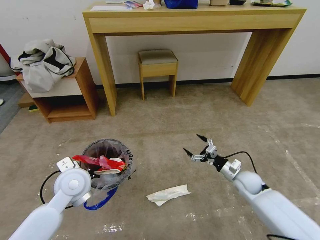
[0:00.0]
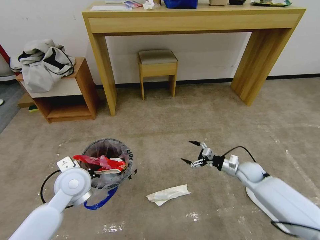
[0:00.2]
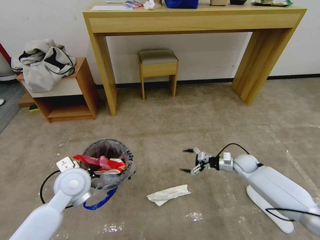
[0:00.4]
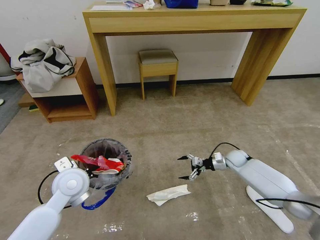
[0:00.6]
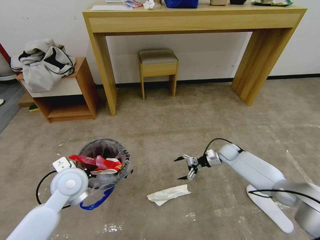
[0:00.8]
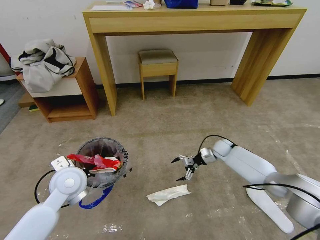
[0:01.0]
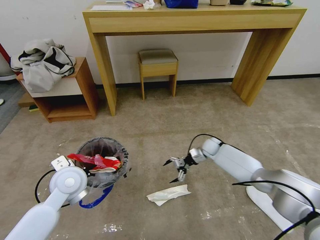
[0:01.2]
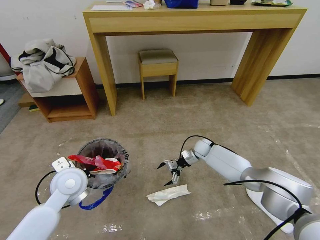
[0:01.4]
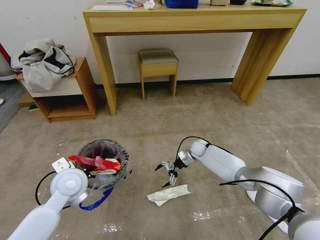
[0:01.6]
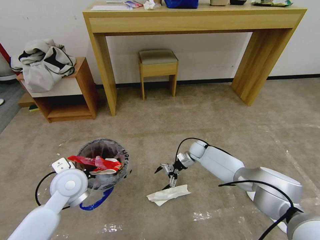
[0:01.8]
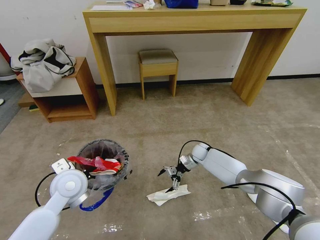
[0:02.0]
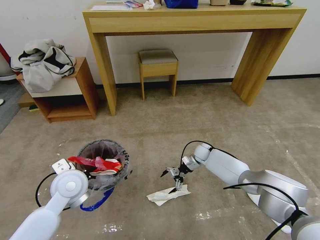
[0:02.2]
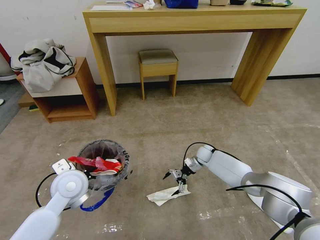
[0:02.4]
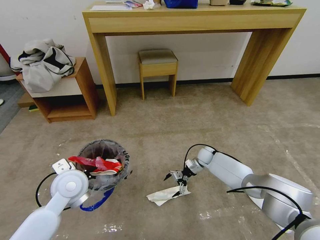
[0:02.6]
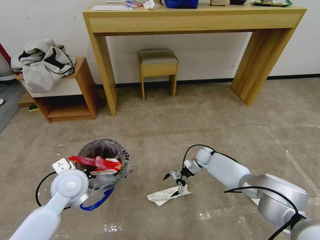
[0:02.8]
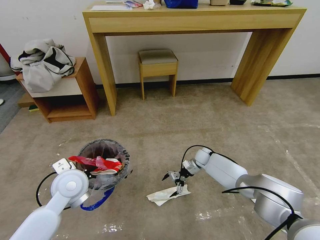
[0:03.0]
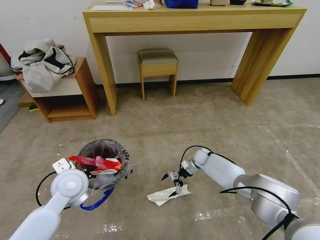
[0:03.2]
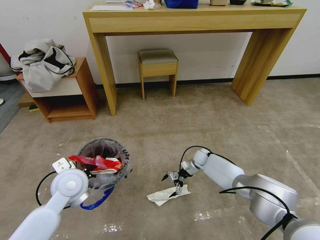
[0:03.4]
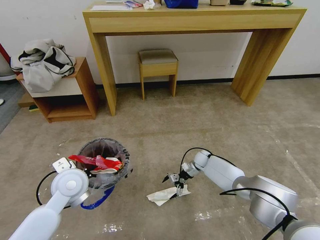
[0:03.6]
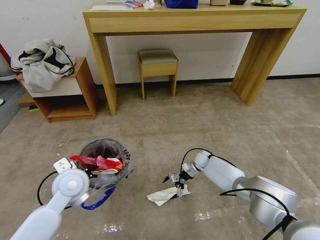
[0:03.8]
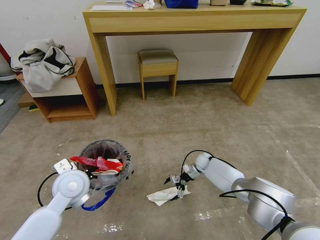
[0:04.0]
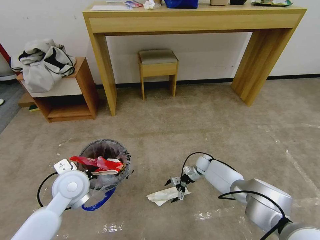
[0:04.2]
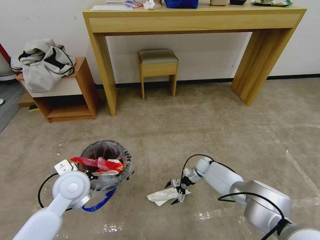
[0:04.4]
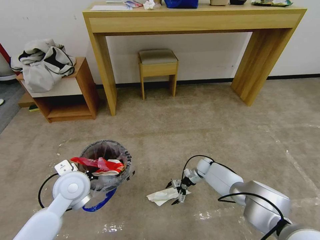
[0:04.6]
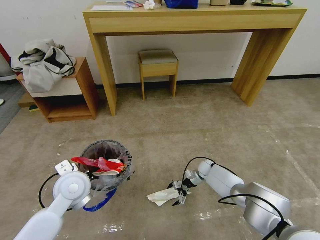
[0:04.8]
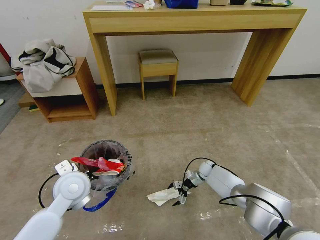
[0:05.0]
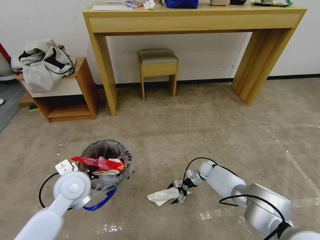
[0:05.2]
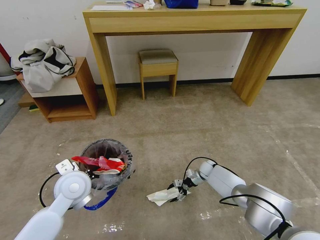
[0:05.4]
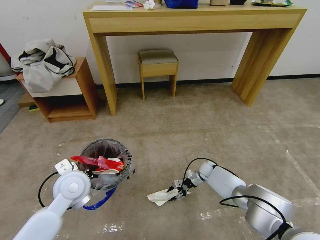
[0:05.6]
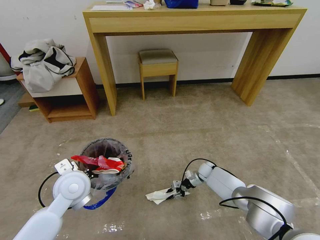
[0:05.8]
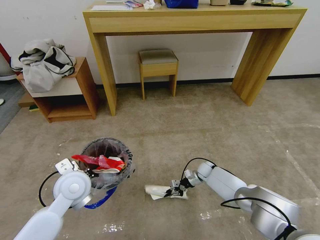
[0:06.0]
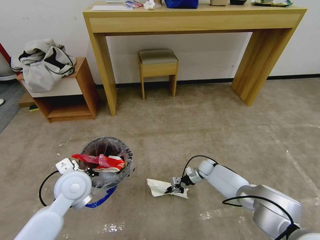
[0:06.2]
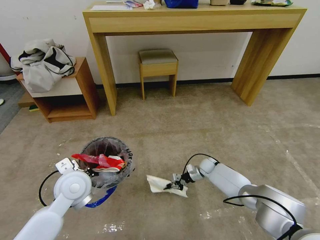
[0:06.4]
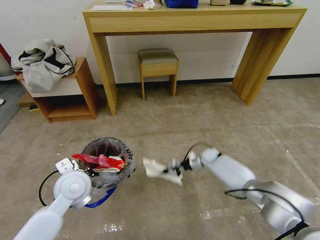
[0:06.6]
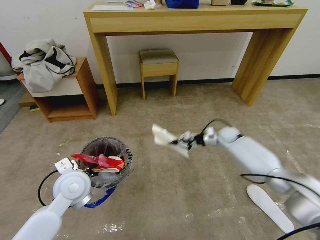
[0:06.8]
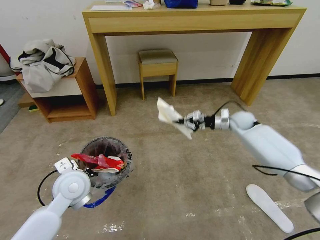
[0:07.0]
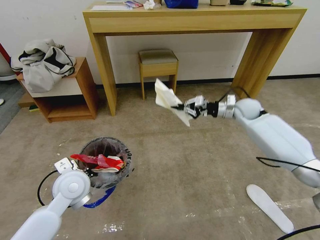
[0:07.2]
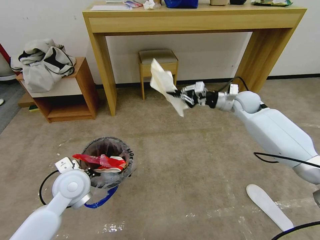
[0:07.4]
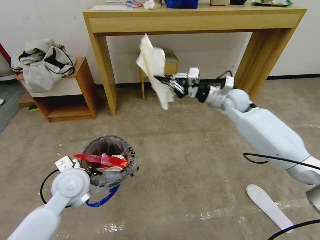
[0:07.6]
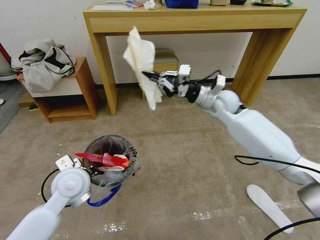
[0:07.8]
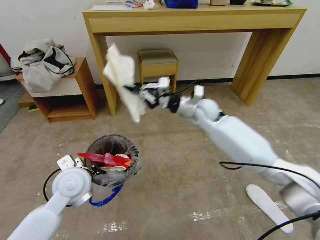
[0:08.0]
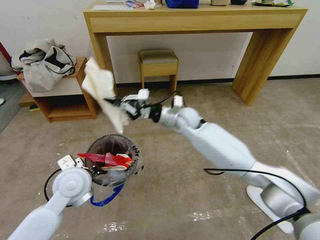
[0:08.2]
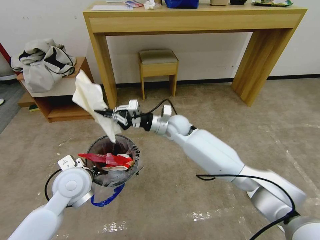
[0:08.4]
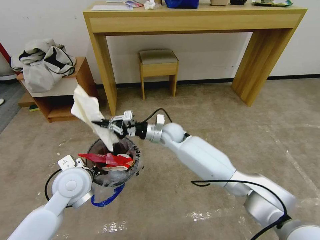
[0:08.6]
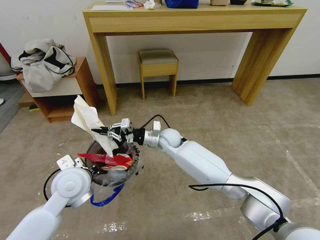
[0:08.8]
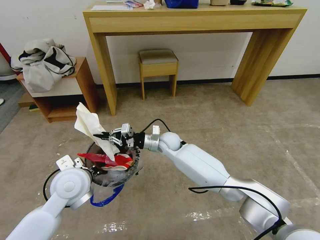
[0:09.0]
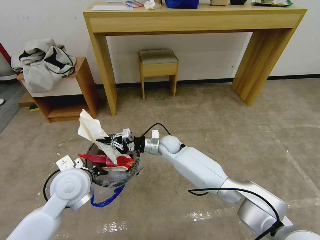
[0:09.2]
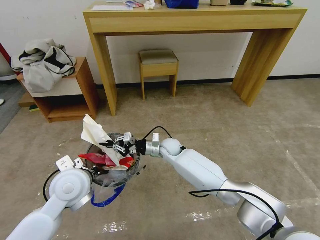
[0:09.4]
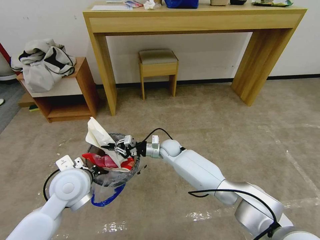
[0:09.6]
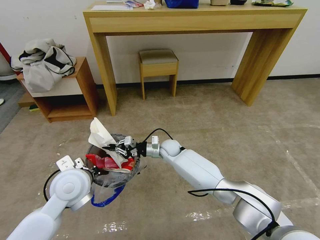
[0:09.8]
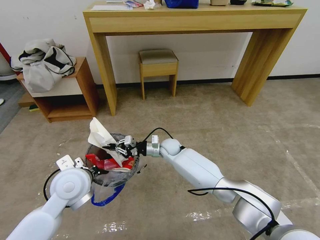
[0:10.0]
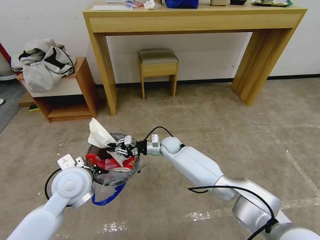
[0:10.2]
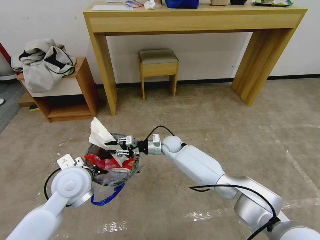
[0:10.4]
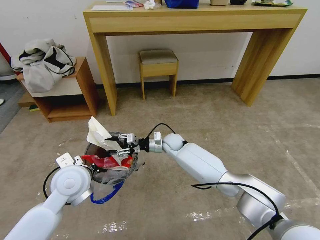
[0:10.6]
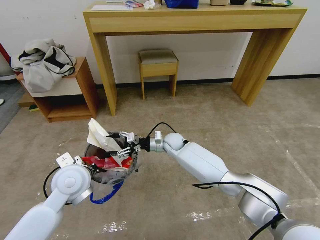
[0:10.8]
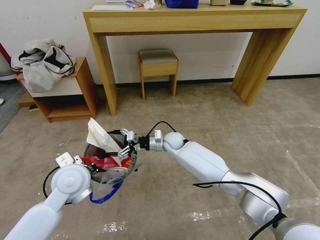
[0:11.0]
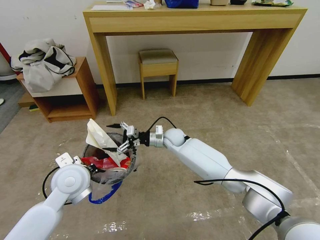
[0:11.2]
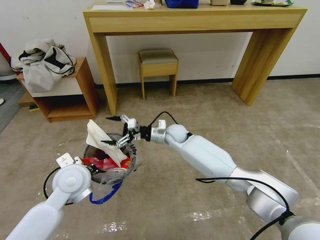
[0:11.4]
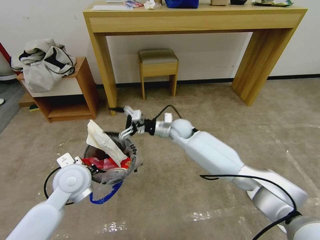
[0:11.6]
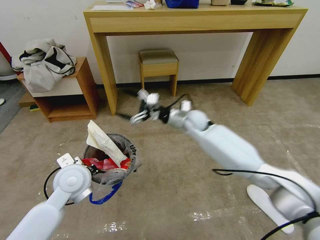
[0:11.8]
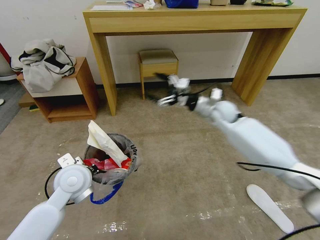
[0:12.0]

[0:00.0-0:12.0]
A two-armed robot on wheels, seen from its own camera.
Task of the whole recording: Pick up the trash bin and place the garbage on the floor into it.
0:00.0 to 0:01.6: The right gripper heads forward and to the left, covering some 25 cm.
0:01.6 to 0:03.0: The right gripper shifts by about 5 cm.
0:03.0 to 0:04.4: The right gripper ends up some 5 cm from where it was.
0:04.4 to 0:06.0: The right gripper closes up.
0:06.0 to 0:07.6: The right gripper is displaced upward by approximately 40 cm.
0:07.6 to 0:09.0: The right gripper goes roughly 30 cm to the left and downward.
0:09.0 to 0:10.4: The right gripper heads downward, covering approximately 5 cm.
0:10.4 to 0:12.0: The right gripper travels to the right and upward by approximately 25 cm, and opens up.

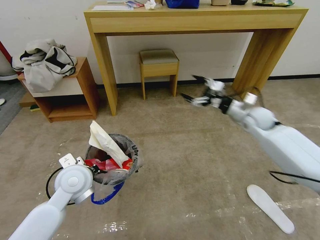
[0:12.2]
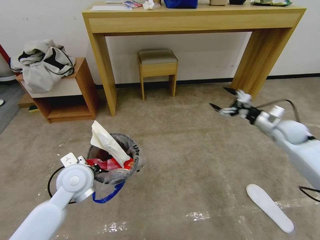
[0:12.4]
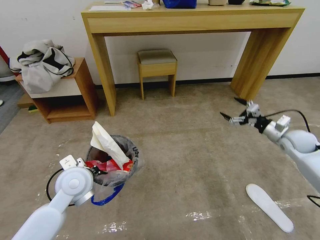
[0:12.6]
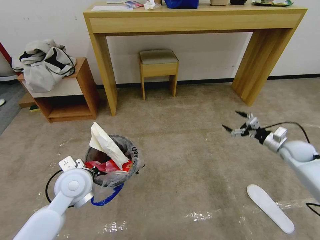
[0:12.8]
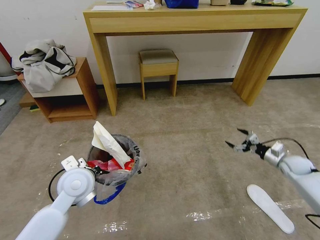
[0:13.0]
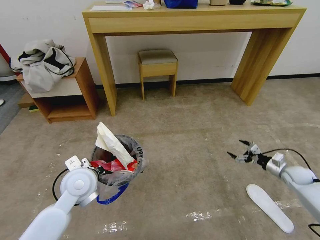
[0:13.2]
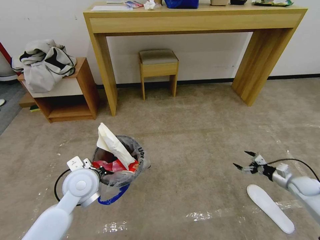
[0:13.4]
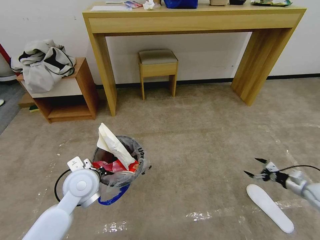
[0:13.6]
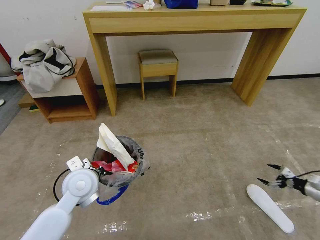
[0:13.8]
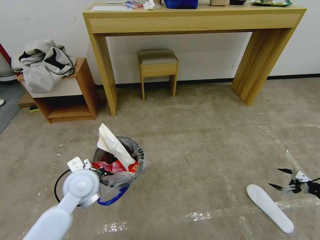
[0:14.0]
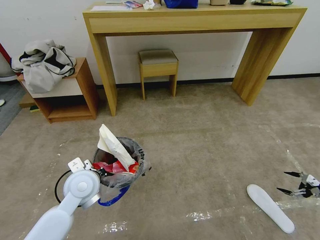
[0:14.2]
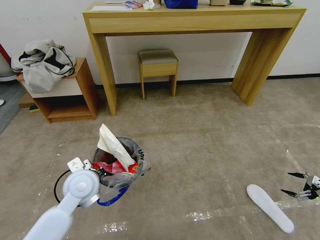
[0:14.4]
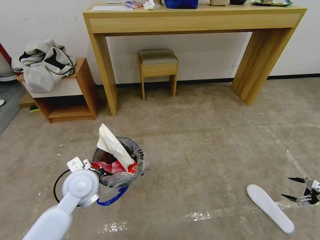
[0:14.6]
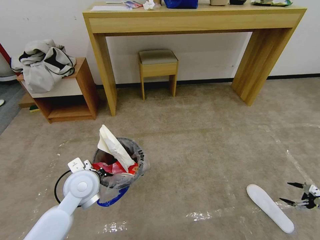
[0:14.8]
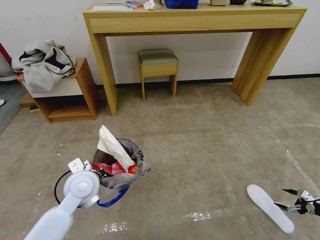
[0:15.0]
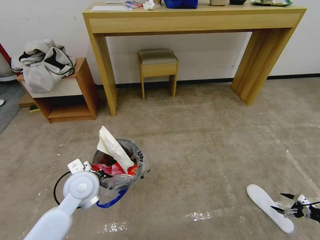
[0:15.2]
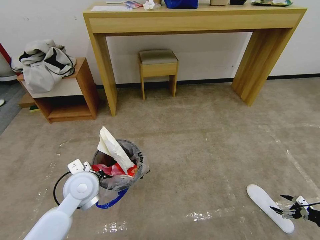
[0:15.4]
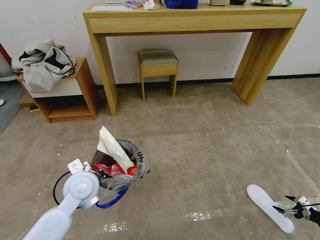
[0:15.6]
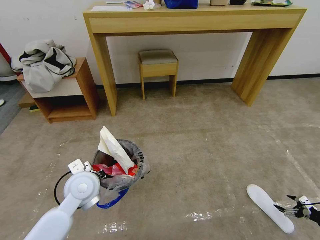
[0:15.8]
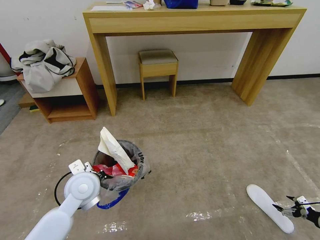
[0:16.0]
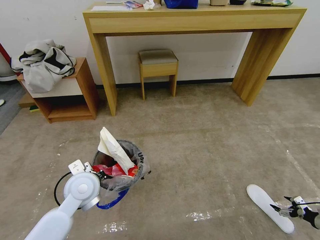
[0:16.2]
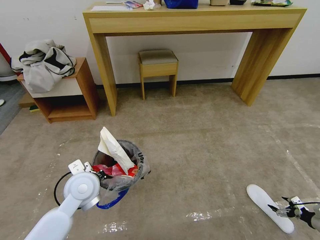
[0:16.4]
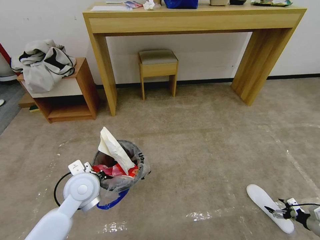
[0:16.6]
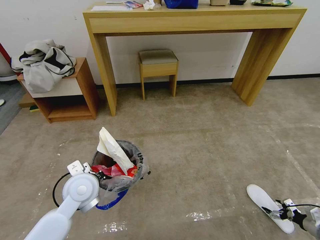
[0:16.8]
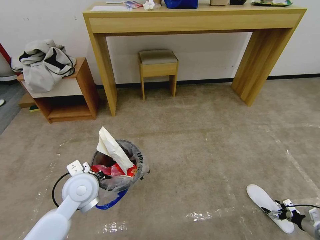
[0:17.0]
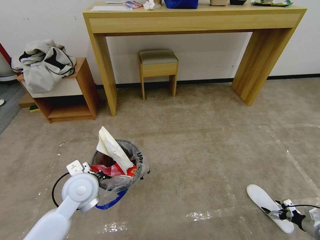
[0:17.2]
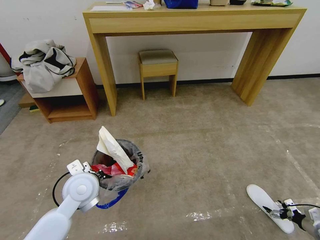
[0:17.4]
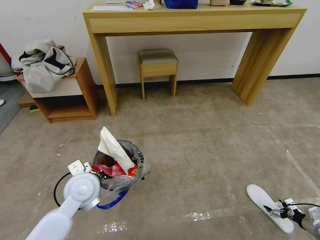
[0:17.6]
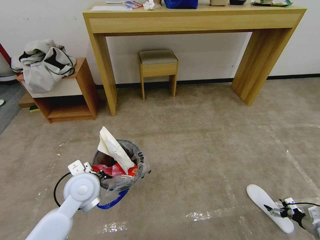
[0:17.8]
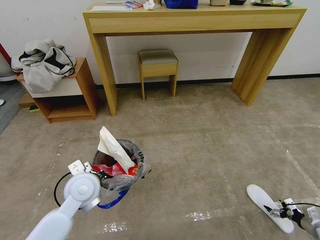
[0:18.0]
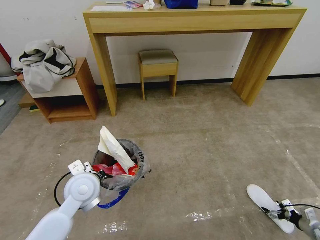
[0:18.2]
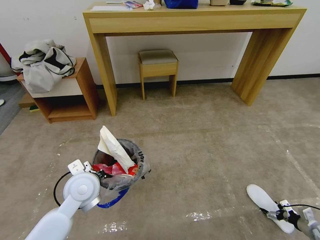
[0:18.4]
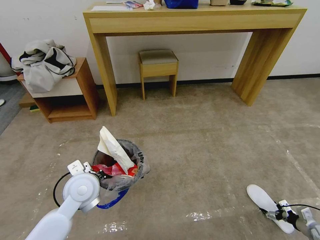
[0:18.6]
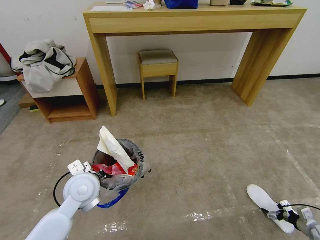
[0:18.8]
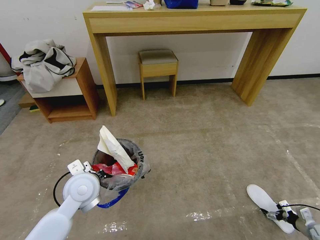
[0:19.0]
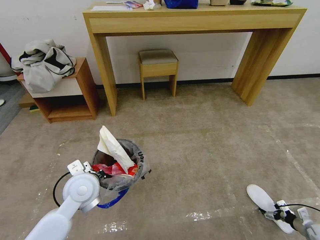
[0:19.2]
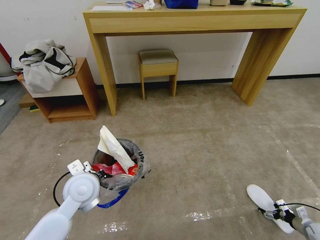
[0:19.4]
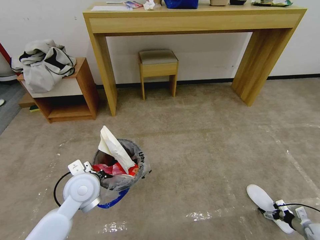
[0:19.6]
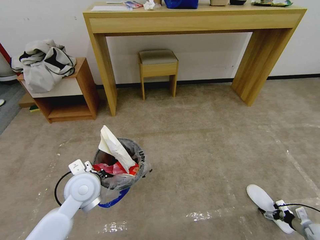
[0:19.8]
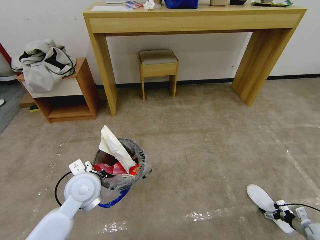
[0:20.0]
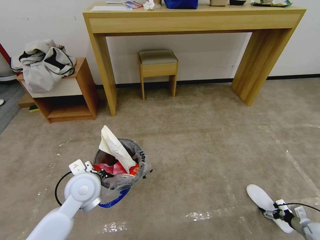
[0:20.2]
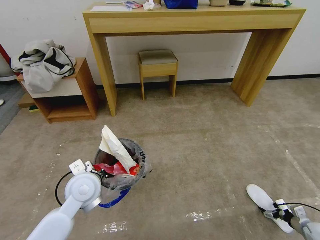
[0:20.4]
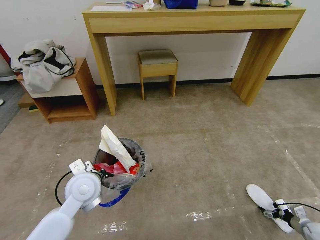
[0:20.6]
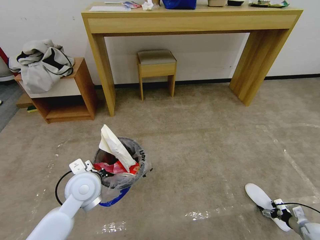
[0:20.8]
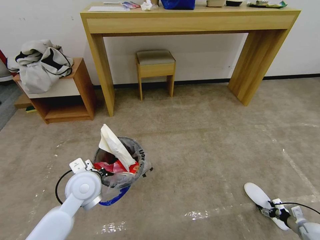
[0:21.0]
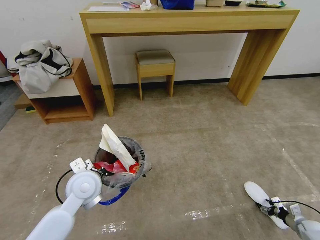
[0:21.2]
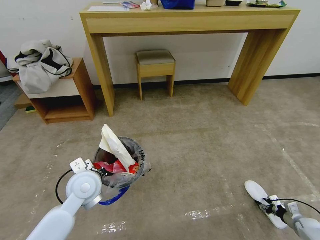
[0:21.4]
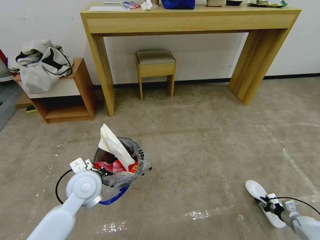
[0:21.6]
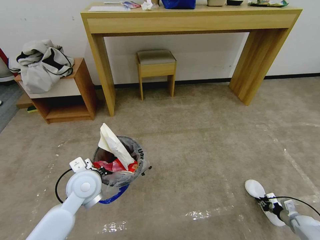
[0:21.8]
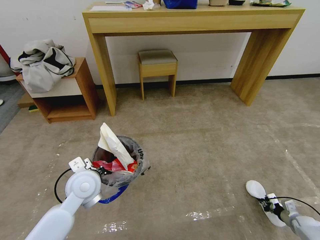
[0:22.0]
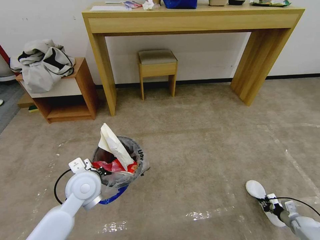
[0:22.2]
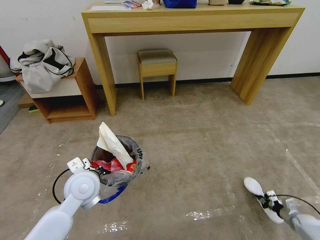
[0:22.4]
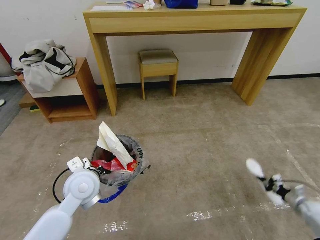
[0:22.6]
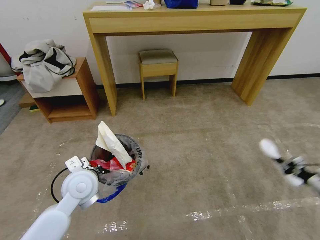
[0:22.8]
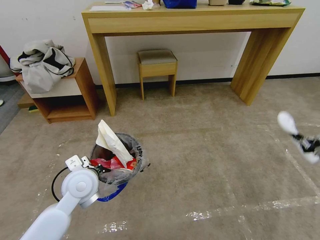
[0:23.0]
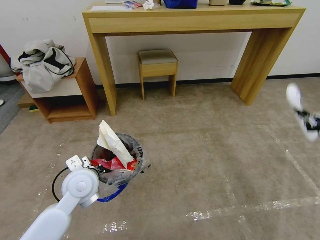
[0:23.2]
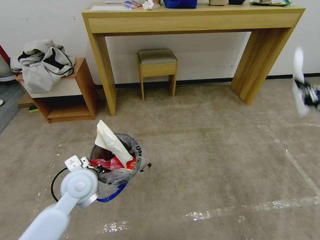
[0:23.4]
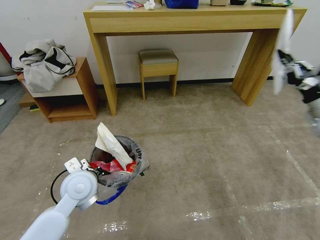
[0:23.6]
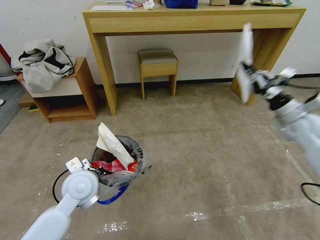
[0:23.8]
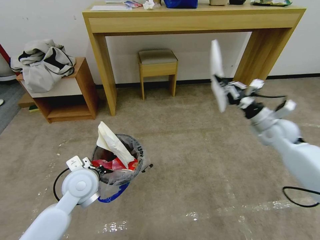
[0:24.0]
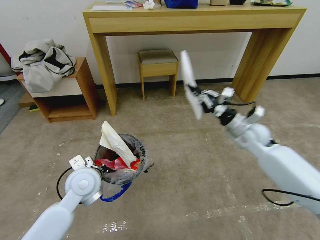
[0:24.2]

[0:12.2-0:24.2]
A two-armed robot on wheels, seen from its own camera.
Task of the whole recording: Pick up the trash bin and place the garbage on the floor into it.
0:12.2 to 0:13.8: The right gripper goes some 40 cm to the right, downward and backward.
0:13.8 to 0:15.2: The right gripper is displaced backward, to the right and downward by approximately 10 cm.
0:15.2 to 0:16.6: The right gripper goes approximately 5 cm downward.
0:16.6 to 0:19.8: The grippers move only a little.
0:19.8 to 0:21.2: The right gripper closes.
0:21.2 to 0:22.6: The right gripper shifts some 10 cm upward and forward, and closes.
0:22.6 to 0:24.2: The right gripper moves to the left, upward and forward, approximately 50 cm.
